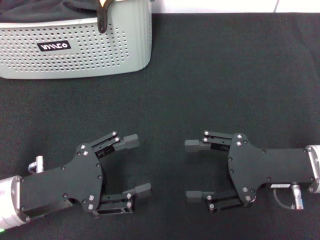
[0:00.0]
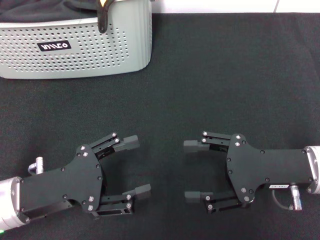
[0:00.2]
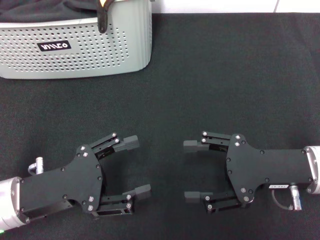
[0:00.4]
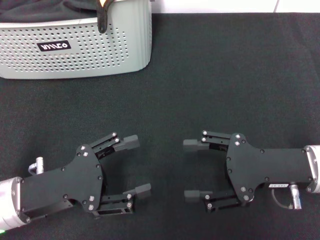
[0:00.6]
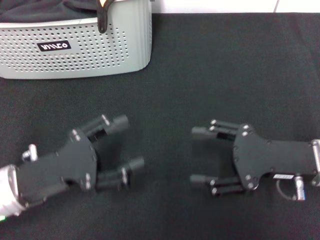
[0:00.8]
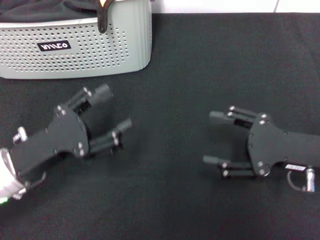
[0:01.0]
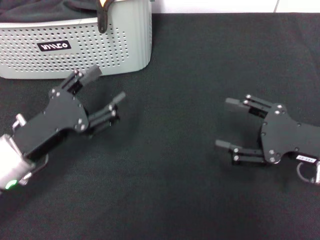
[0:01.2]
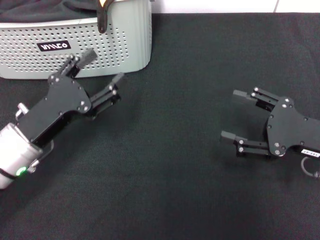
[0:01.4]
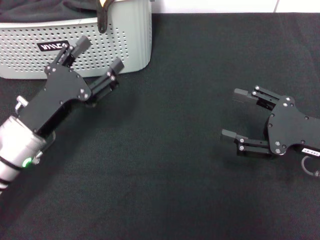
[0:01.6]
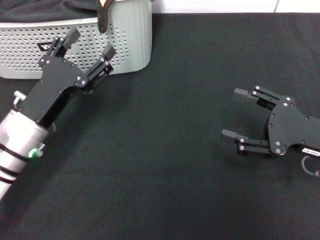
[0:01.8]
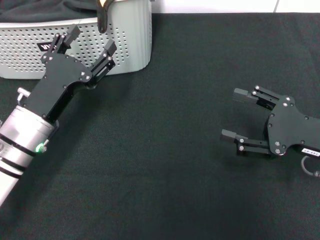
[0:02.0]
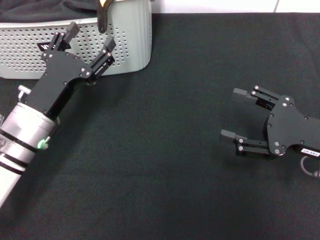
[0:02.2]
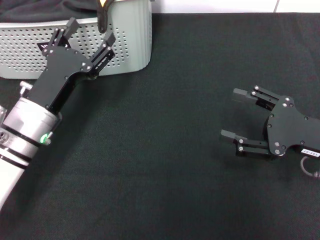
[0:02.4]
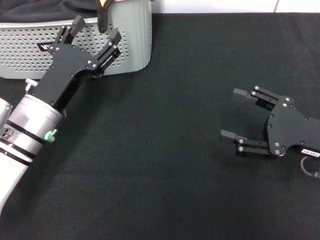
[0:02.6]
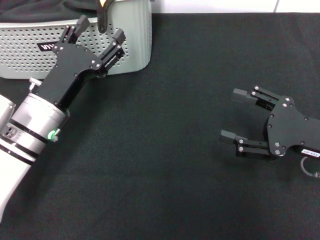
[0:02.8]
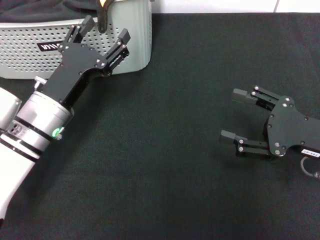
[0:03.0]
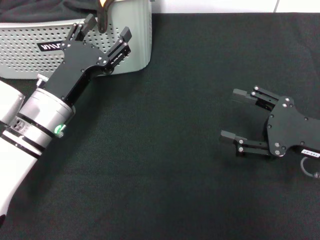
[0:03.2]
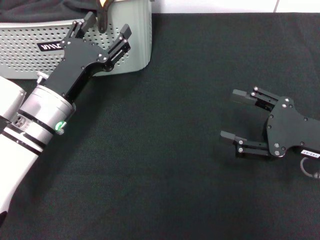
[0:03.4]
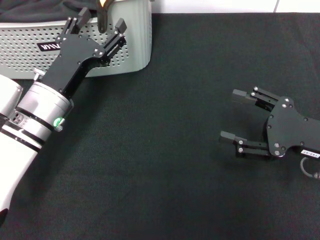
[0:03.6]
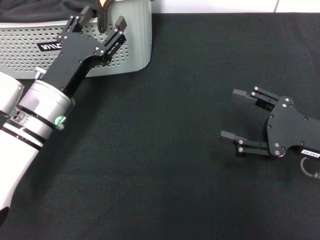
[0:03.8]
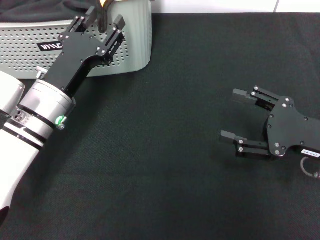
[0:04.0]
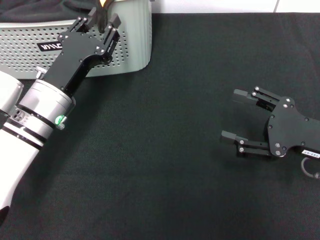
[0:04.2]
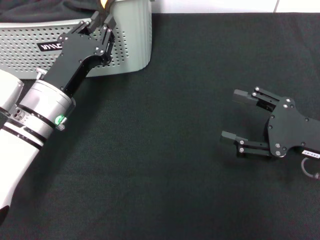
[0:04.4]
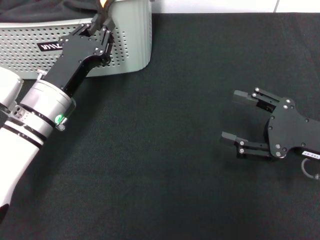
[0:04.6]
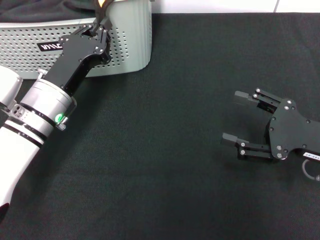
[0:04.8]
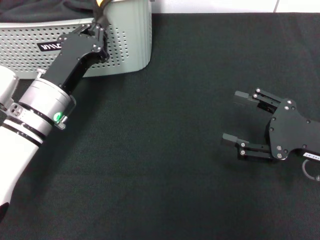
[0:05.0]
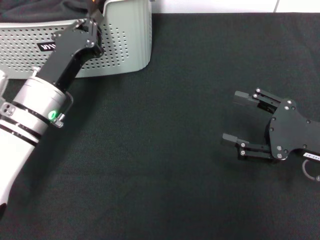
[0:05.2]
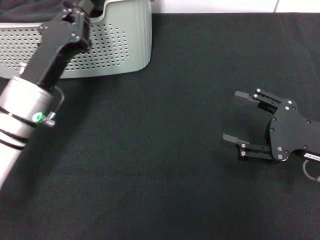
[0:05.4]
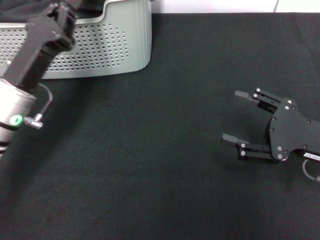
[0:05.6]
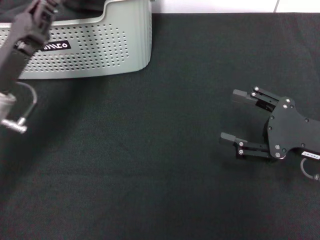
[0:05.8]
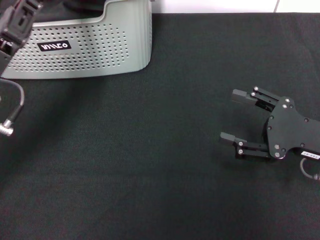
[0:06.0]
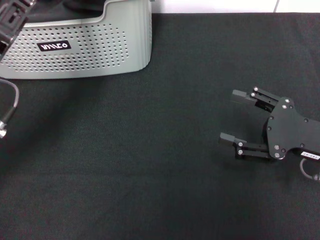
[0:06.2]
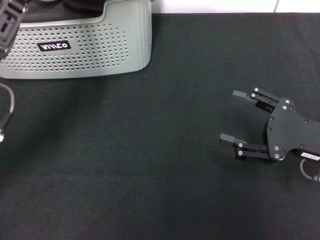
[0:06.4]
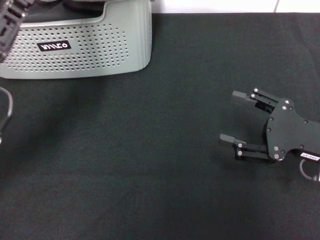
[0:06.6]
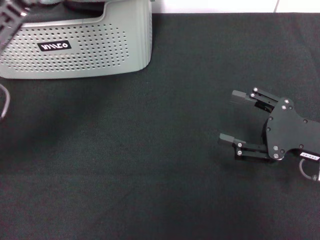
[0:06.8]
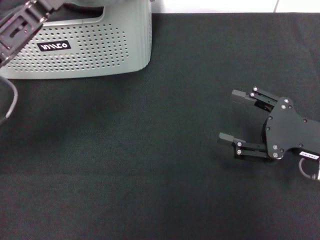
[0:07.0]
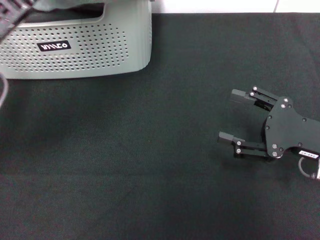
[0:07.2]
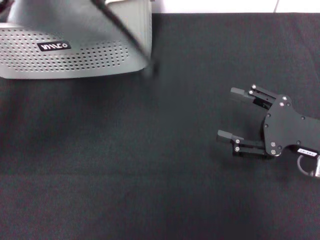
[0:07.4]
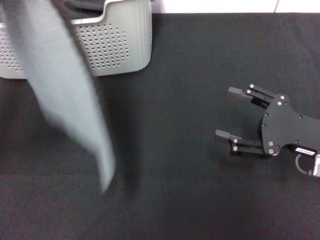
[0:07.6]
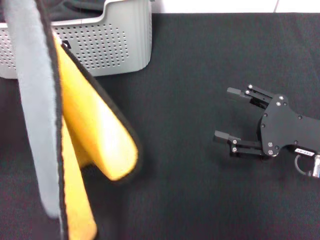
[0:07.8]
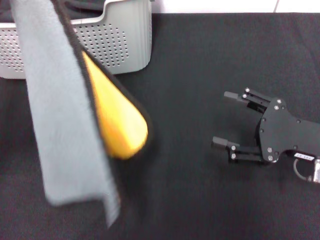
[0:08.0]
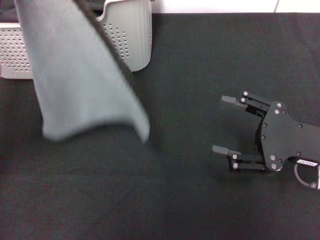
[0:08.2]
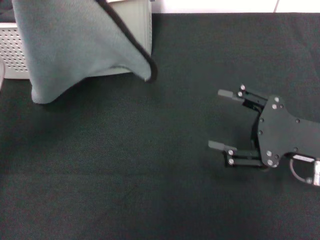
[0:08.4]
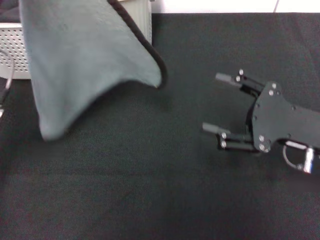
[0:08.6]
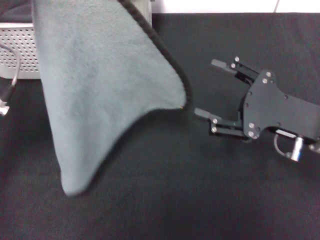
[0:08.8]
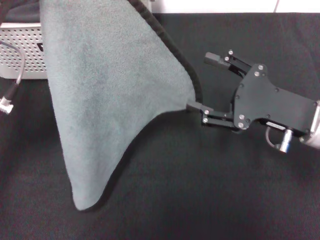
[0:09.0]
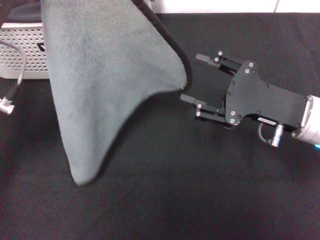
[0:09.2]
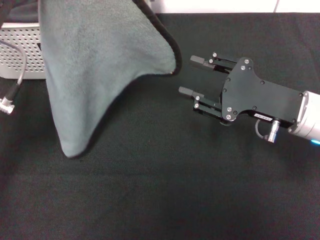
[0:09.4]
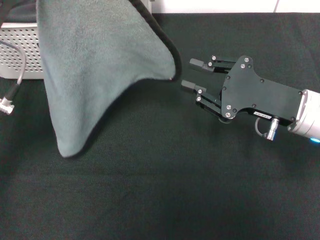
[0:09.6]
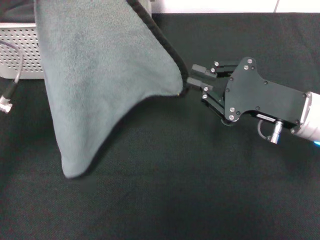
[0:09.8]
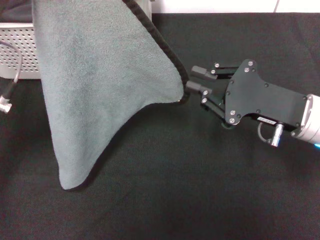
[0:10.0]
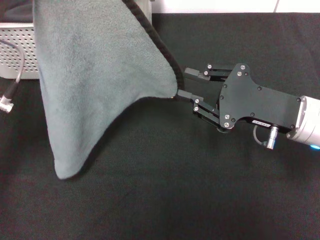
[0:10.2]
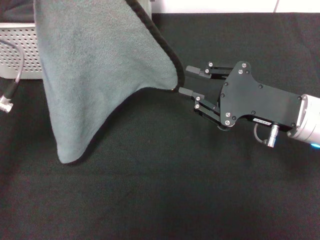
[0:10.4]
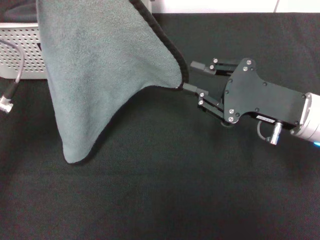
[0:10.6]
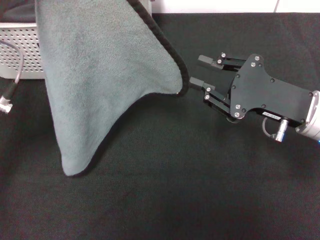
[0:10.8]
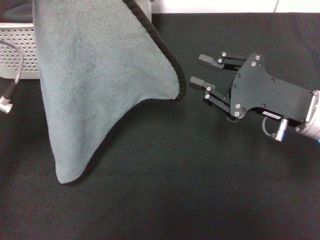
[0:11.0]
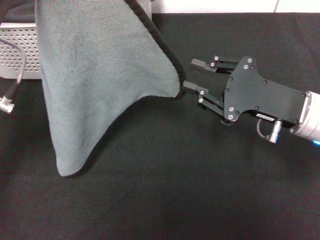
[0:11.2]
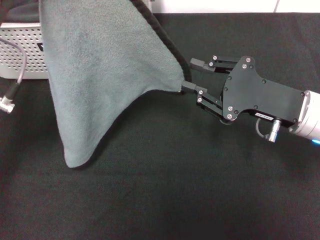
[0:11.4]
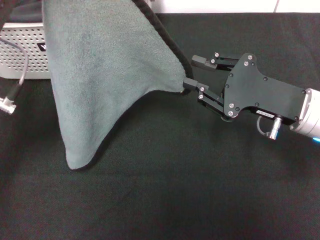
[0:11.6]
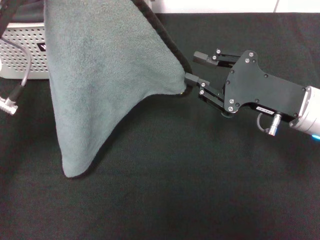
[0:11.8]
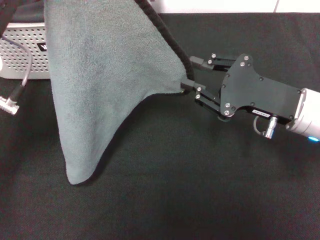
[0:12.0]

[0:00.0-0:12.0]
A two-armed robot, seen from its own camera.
Task of the whole recording: pick up the towel from the storage box and lay it flat on the black tablecloth.
Step, 0:00.0 to 0:05.2: Pick up a towel with the left gripper.
0:00.0 to 0:01.6: The left gripper travels forward by roughly 5 cm.
0:01.6 to 0:03.0: The grippers stay close to where they were, moving slightly.
0:03.0 to 0:04.4: The left gripper closes.
0:04.4 to 0:06.0: The left gripper heads to the left and upward, covering about 10 cm, and closes its fingers.
0:06.0 to 0:07.6: The left gripper shifts roughly 5 cm upward.
0:09.0 to 0:10.4: The right gripper closes up.
0:10.4 to 0:12.0: The two grippers keep their place.

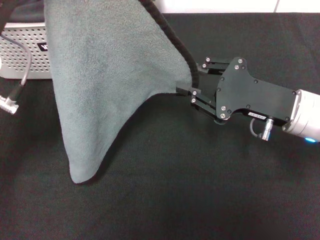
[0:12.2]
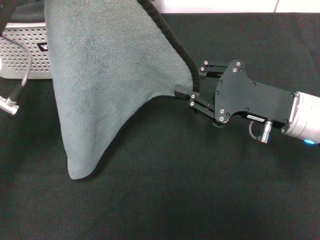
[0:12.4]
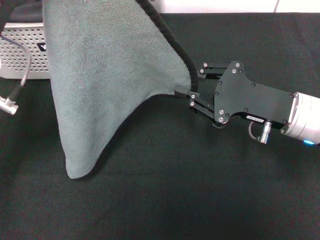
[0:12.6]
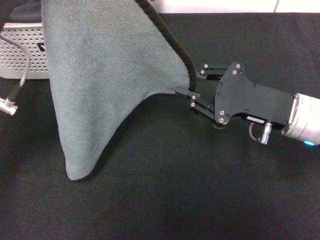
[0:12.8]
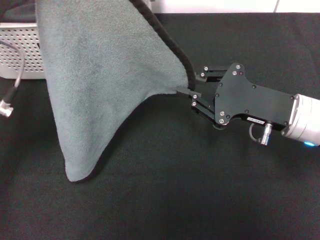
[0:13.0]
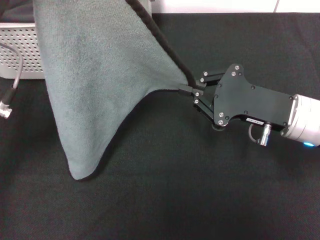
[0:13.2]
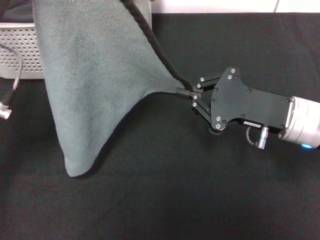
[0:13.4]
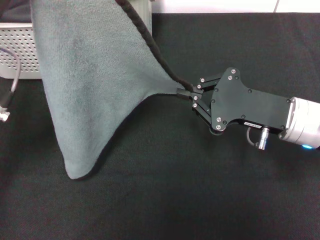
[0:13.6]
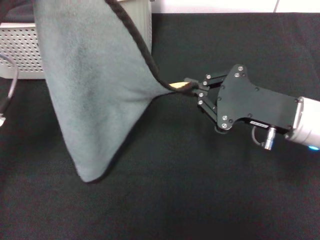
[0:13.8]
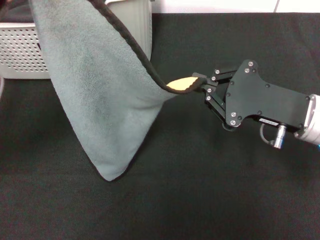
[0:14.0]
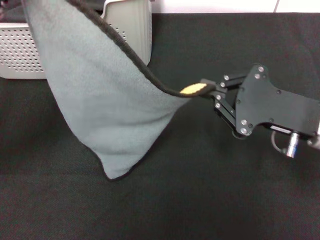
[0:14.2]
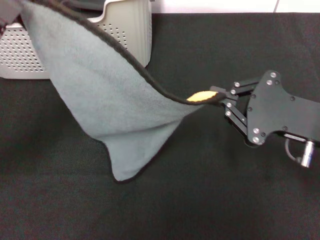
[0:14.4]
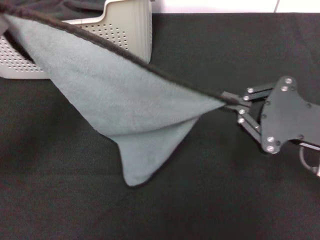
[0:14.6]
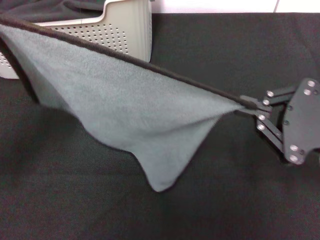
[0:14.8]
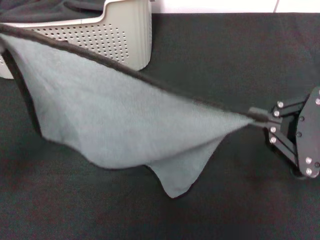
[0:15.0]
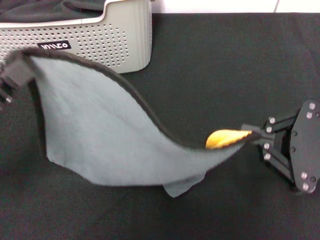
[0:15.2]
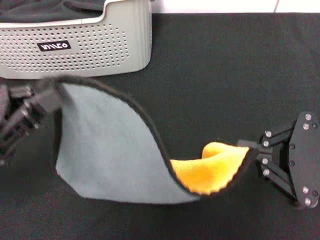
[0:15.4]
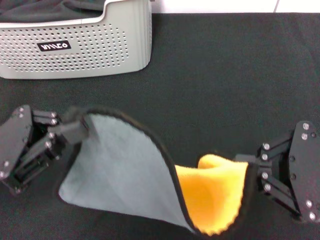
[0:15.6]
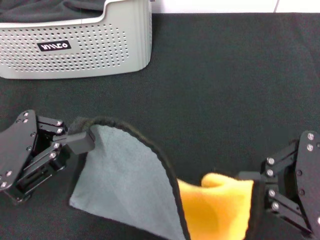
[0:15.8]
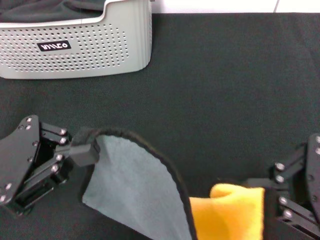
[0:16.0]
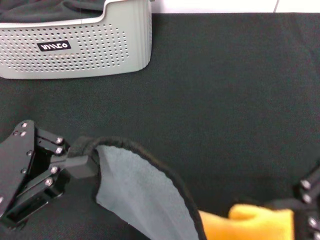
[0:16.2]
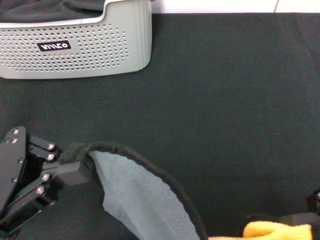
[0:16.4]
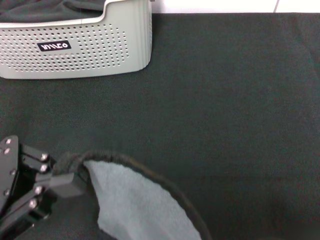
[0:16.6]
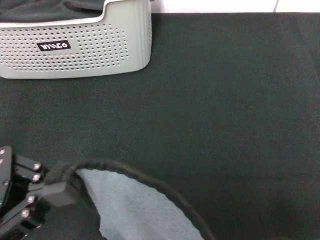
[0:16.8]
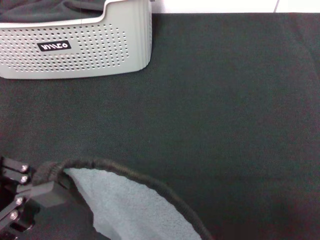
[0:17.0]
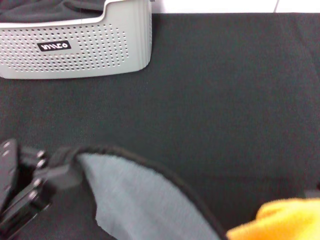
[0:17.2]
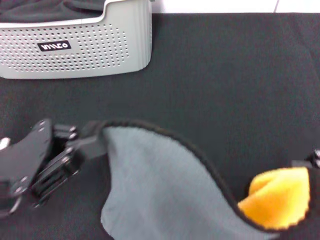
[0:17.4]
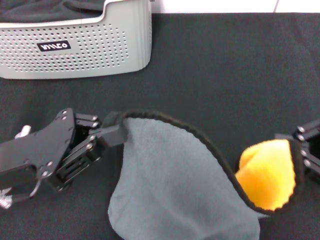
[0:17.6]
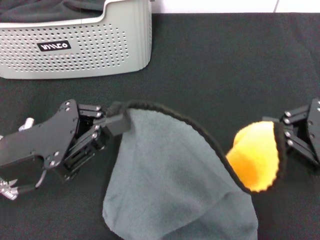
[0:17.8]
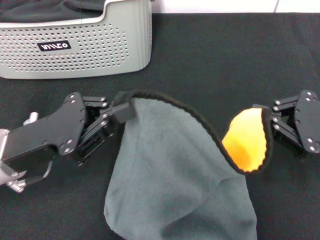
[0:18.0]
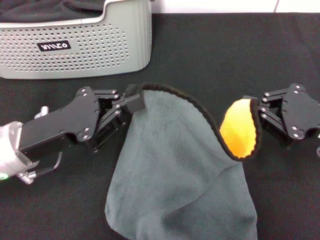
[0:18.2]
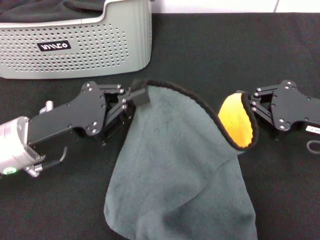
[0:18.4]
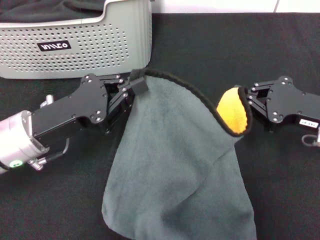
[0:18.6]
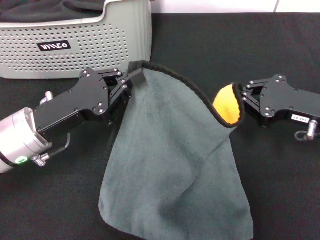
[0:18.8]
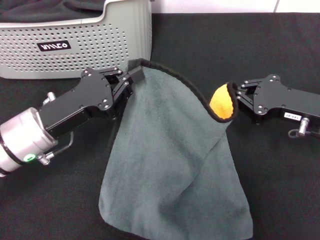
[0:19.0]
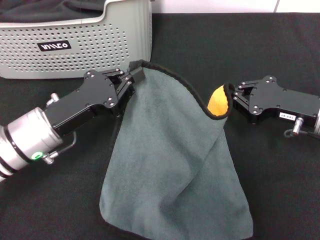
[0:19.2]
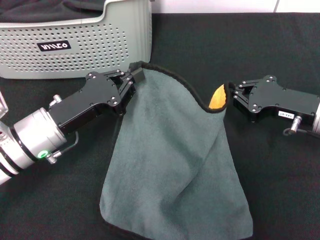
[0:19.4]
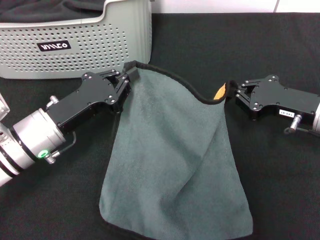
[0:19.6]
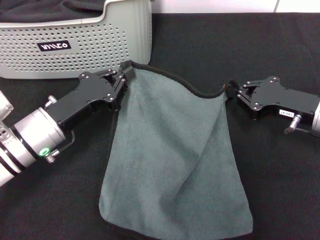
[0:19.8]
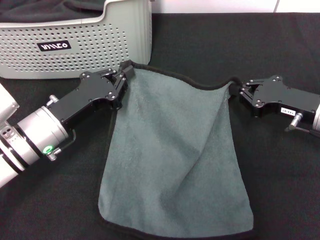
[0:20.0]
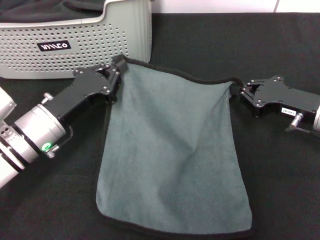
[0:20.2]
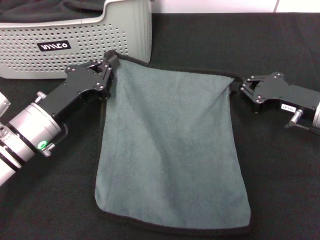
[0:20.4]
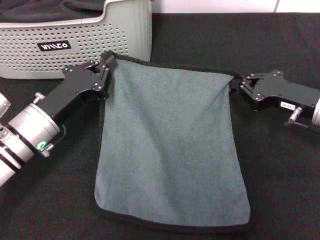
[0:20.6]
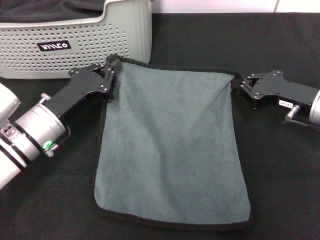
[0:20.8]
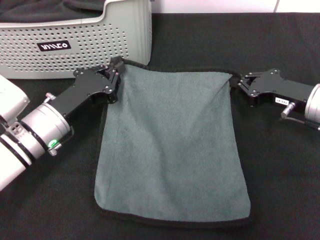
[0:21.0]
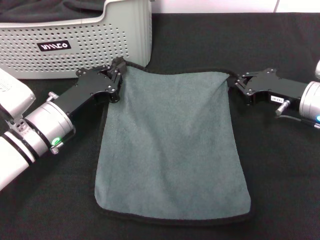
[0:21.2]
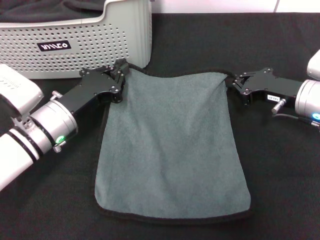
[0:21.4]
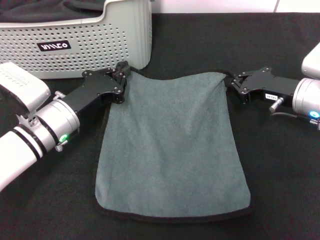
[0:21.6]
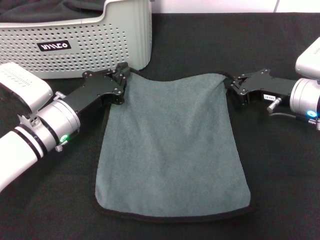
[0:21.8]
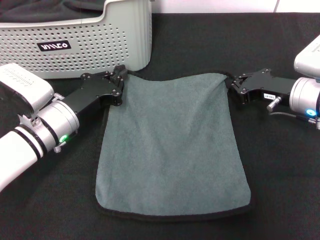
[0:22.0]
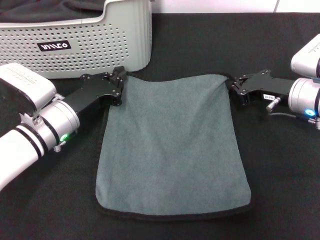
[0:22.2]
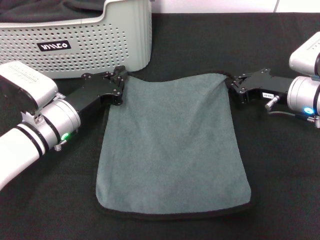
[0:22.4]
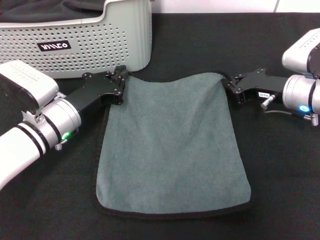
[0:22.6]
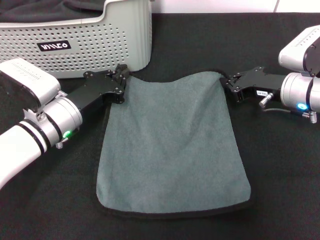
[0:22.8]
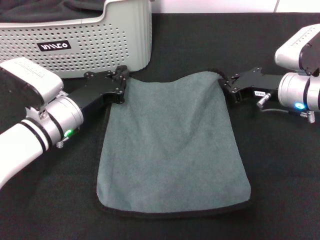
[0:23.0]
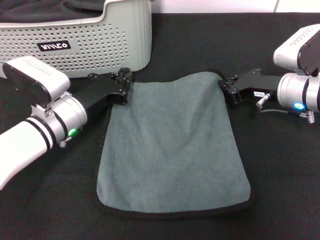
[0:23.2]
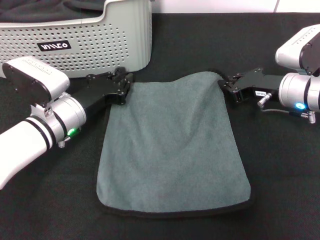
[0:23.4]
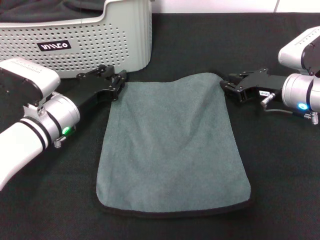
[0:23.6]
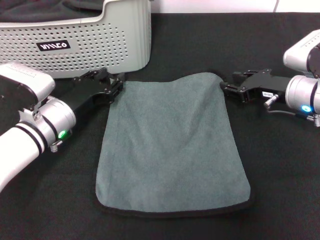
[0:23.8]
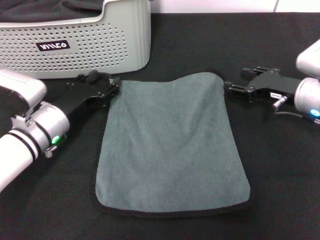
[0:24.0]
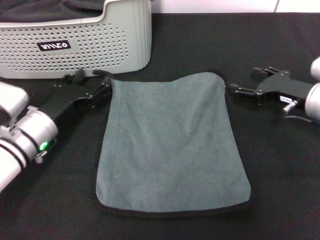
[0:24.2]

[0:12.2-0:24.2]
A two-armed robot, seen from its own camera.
Task of the whole recording: pick up the towel from the storage box and lay it flat on the black tablecloth.
Step, 0:13.6 to 0:23.4: Spread the towel flat with the right gripper.
0:12.2 to 0:13.8: The right gripper closes.
0:13.8 to 0:15.2: The left gripper goes approximately 10 cm to the left and backward, while the right gripper goes roughly 10 cm backward and to the right.
0:15.2 to 0:16.6: The left gripper ends up some 5 cm from where it was, while the right gripper shifts by about 5 cm.
0:16.6 to 0:18.2: Both grippers move forward and downward, roughly 10 cm.
0:18.2 to 0:19.8: The right gripper travels forward by approximately 5 cm; the left gripper changes place by about 5 cm.
0:21.2 to 0:22.6: There are only small adjustments of the grippers.
0:22.6 to 0:24.2: The left gripper opens its fingers; the right gripper opens up.
